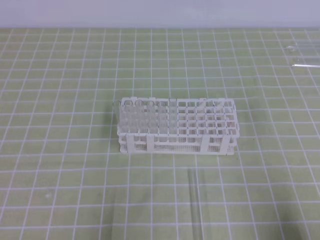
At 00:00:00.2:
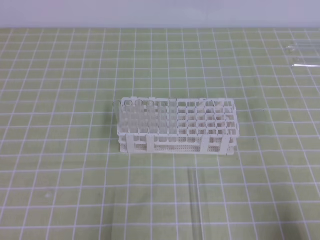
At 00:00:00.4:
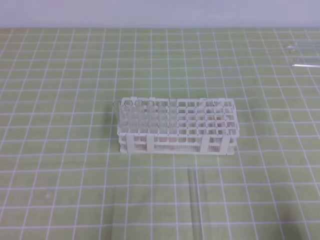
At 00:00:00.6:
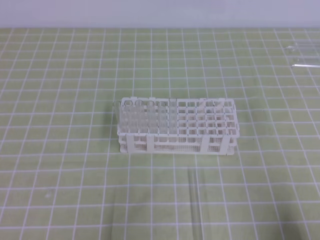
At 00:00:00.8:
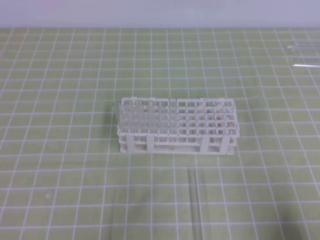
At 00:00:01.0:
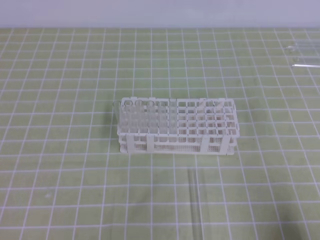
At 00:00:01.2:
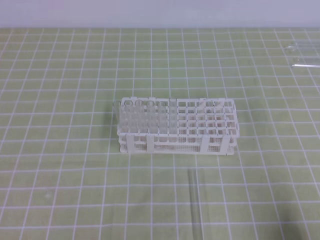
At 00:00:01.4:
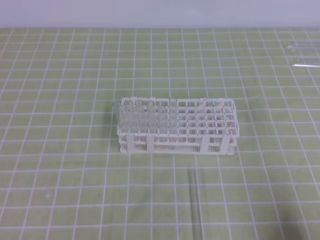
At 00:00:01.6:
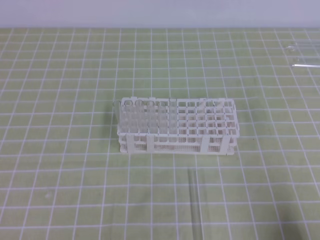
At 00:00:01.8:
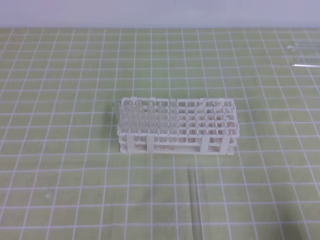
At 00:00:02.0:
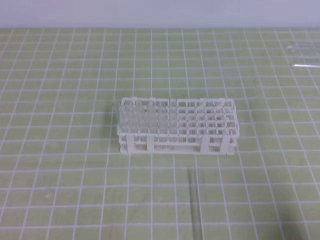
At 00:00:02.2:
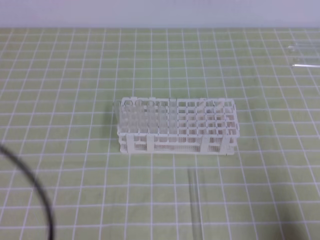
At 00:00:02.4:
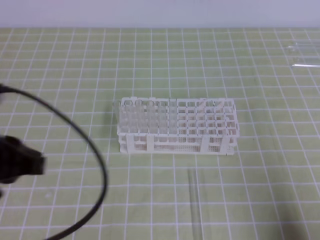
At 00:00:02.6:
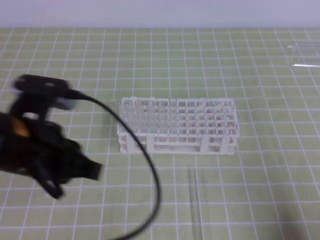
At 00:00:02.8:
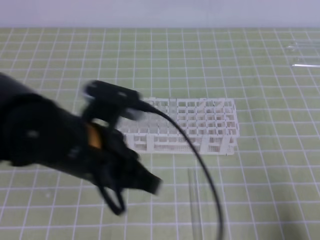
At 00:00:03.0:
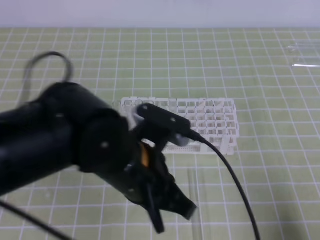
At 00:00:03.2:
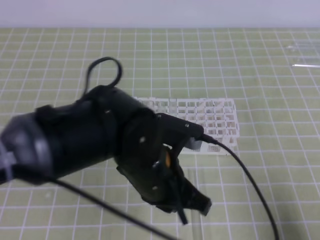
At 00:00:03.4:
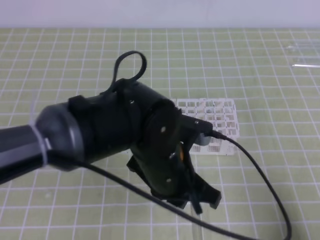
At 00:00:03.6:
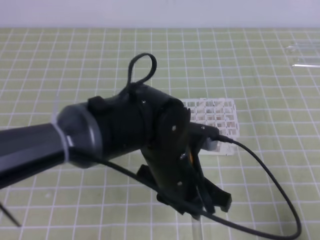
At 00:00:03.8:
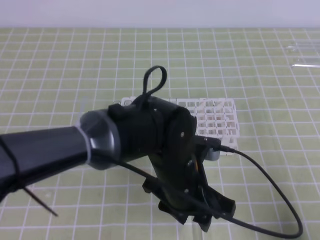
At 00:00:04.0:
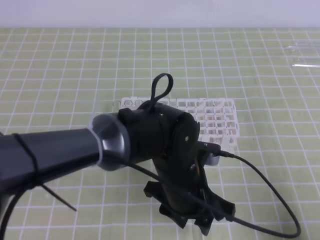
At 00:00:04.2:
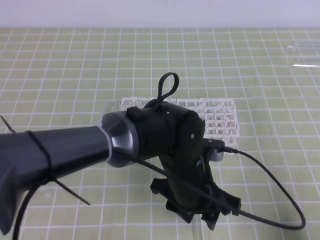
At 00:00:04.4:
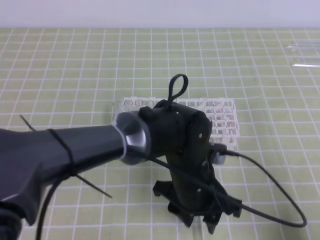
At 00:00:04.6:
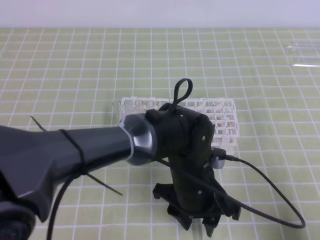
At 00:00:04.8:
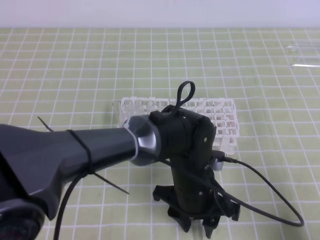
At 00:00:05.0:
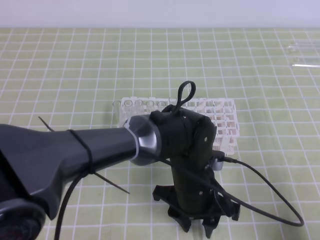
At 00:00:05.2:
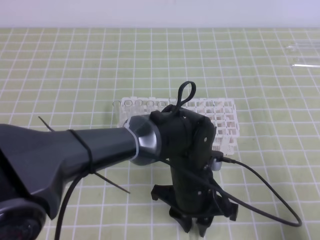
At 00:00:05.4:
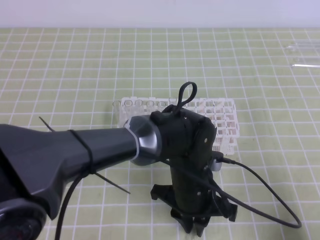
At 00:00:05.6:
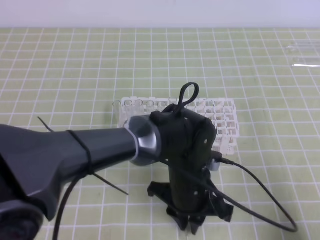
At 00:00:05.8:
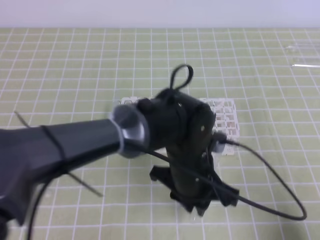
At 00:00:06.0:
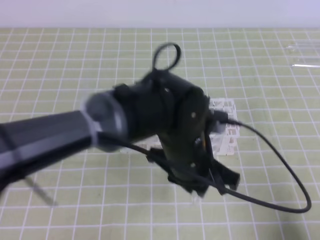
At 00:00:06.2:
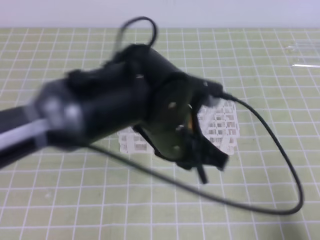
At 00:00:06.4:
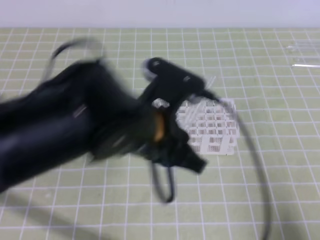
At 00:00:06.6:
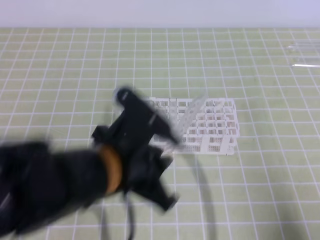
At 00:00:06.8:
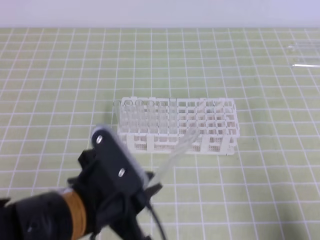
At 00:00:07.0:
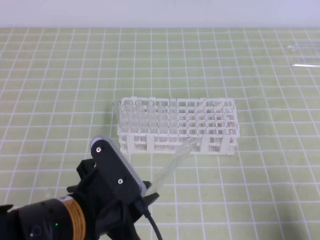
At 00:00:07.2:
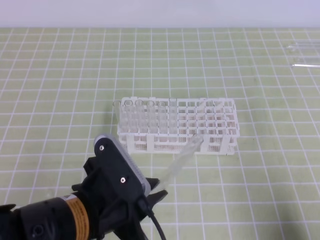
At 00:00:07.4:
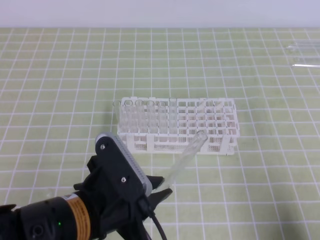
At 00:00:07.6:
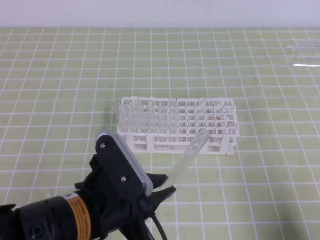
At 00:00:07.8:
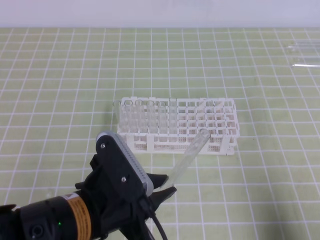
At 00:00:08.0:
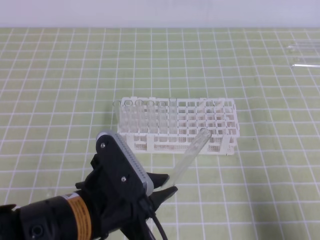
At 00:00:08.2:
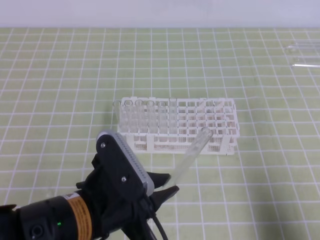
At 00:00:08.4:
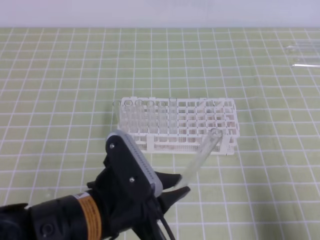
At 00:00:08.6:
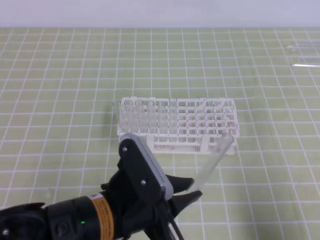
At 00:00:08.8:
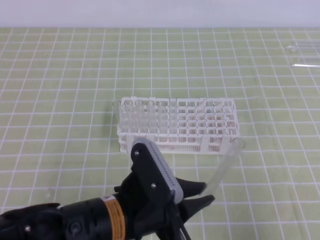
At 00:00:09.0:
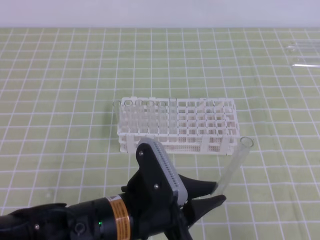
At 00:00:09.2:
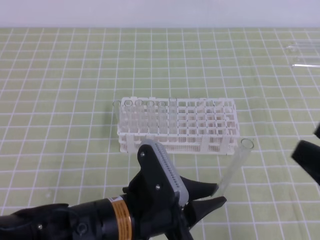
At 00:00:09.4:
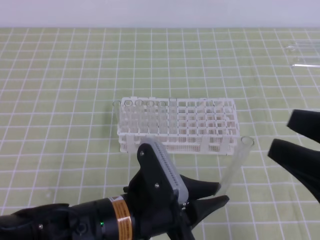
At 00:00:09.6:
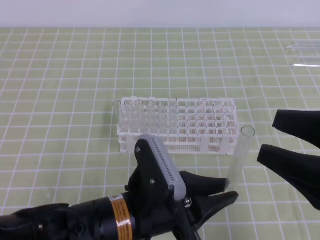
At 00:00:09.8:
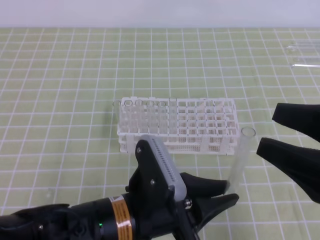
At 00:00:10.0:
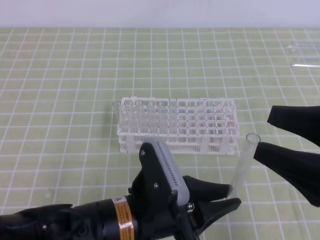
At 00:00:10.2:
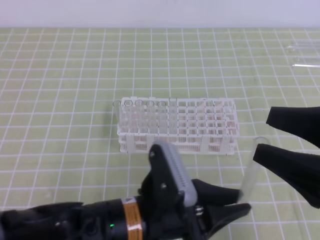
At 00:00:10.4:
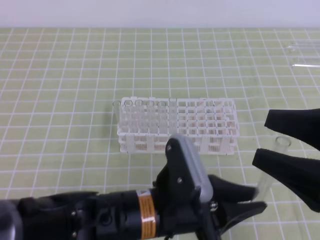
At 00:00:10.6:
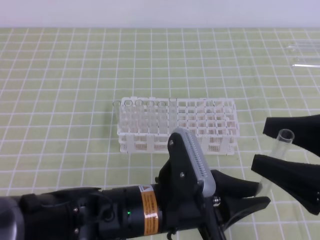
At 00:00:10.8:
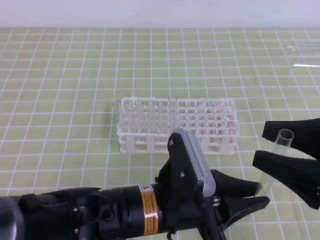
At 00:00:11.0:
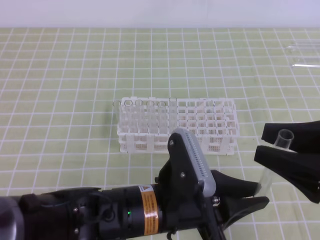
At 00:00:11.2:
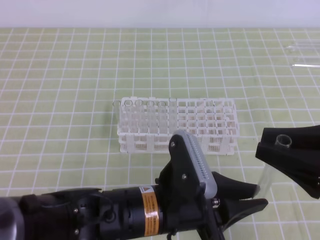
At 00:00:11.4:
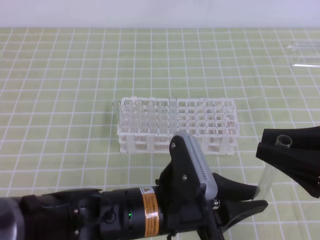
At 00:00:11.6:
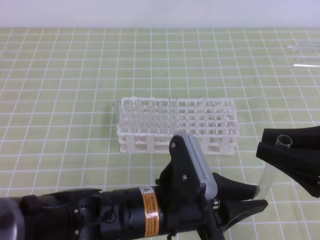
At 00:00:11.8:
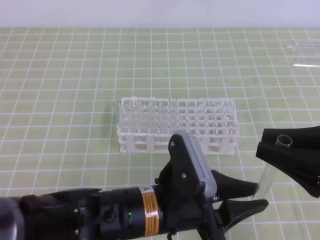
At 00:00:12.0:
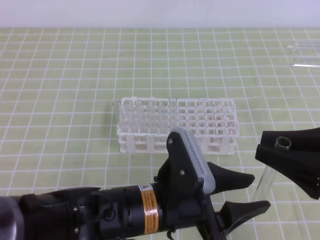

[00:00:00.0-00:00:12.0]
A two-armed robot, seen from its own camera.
00:00:01.6 to 00:00:03.0: The left gripper travels to the right and forward by roughly 25 cm.
00:00:03.0 to 00:00:04.4: The left gripper goes about 15 cm to the right and downward, and opens up.
00:00:04.4 to 00:00:06.0: The left gripper heads upward, covering approximately 5 cm, and closes up.
00:00:06.0 to 00:00:07.6: The left gripper heads to the left and backward, covering roughly 15 cm.
00:00:07.6 to 00:00:09.0: The right gripper goes some 10 cm upward, and opens its fingers, while the left gripper ends up about 5 cm from where it was.
00:00:09.0 to 00:00:10.4: The right gripper shifts roughly 5 cm forward, and opens its fingers.
00:00:10.4 to 00:00:12.0: The left gripper opens its fingers. Meanwhile the right gripper closes.

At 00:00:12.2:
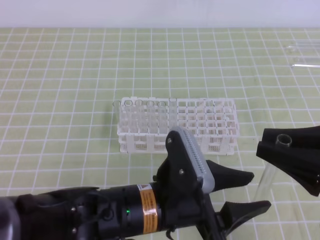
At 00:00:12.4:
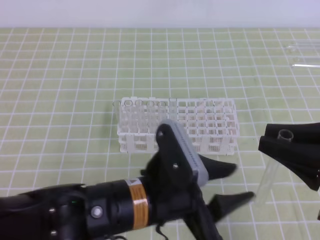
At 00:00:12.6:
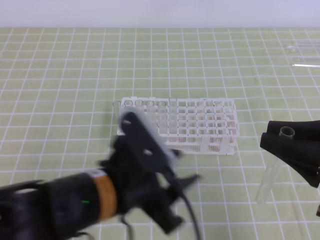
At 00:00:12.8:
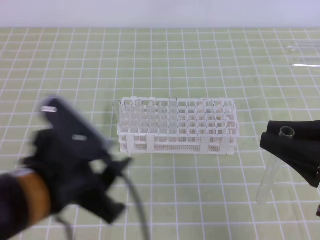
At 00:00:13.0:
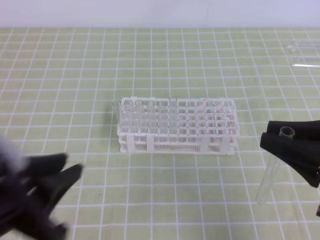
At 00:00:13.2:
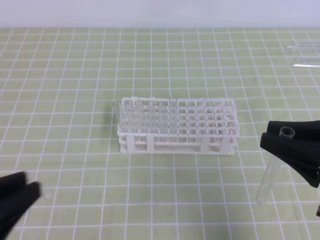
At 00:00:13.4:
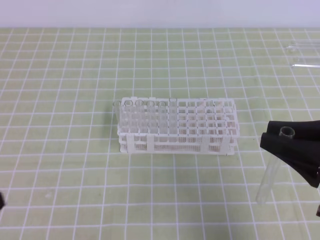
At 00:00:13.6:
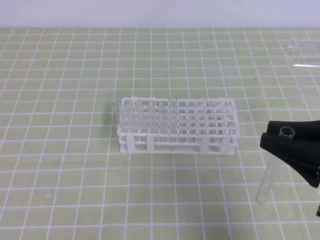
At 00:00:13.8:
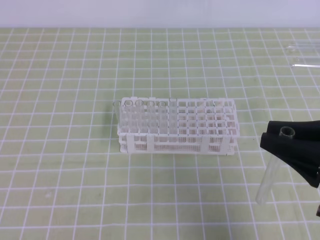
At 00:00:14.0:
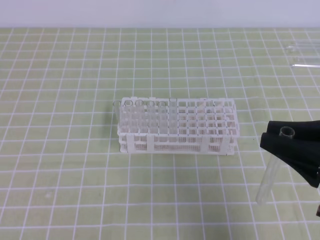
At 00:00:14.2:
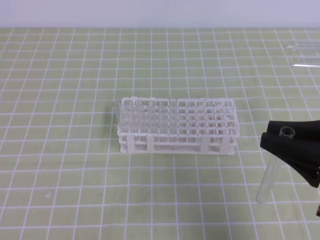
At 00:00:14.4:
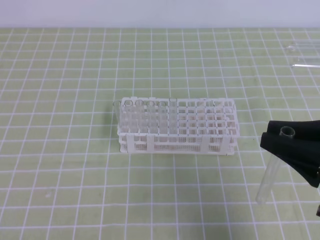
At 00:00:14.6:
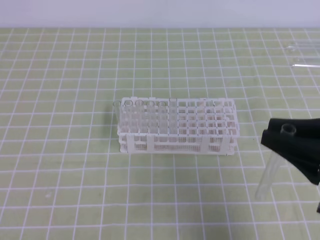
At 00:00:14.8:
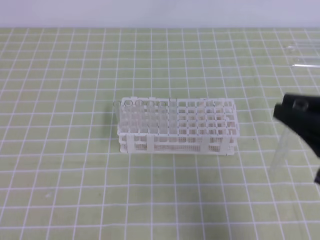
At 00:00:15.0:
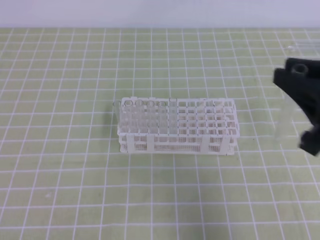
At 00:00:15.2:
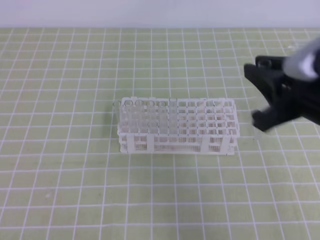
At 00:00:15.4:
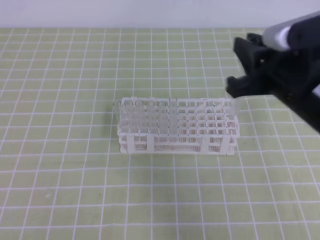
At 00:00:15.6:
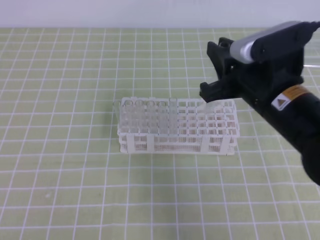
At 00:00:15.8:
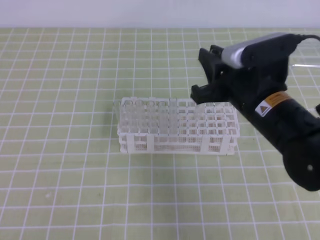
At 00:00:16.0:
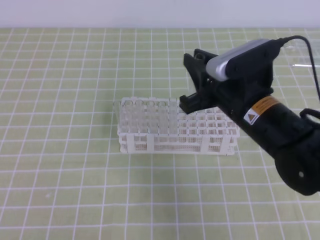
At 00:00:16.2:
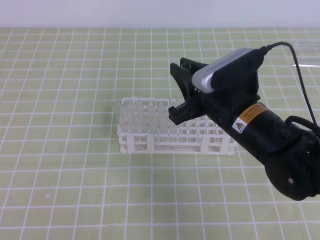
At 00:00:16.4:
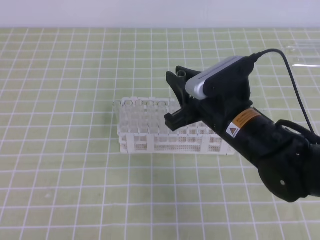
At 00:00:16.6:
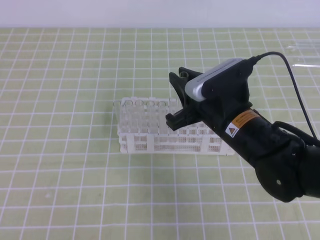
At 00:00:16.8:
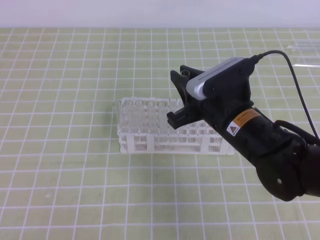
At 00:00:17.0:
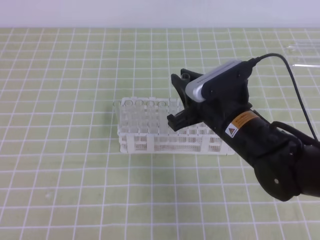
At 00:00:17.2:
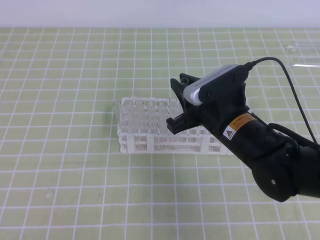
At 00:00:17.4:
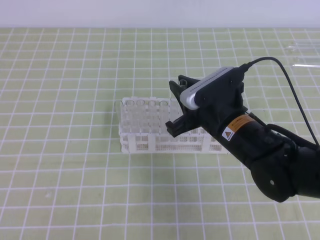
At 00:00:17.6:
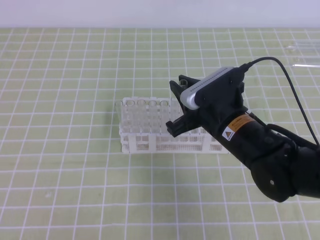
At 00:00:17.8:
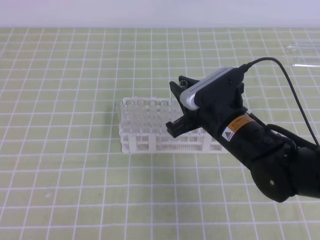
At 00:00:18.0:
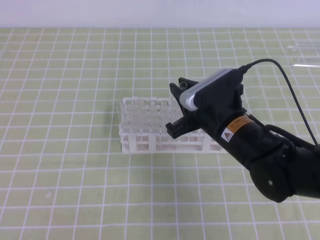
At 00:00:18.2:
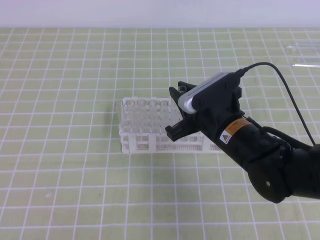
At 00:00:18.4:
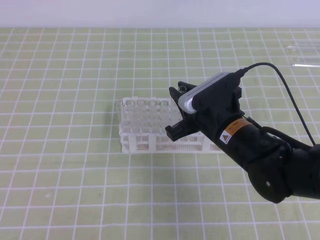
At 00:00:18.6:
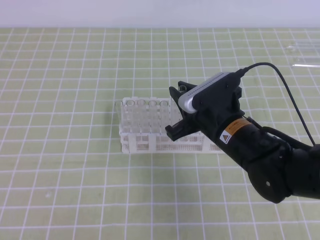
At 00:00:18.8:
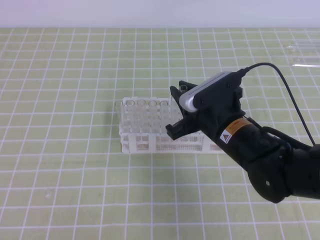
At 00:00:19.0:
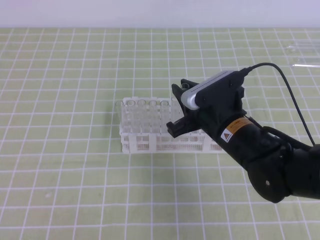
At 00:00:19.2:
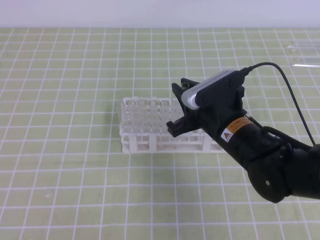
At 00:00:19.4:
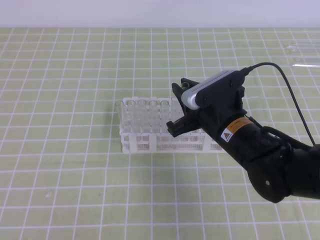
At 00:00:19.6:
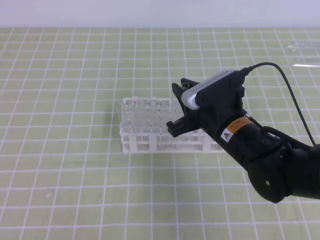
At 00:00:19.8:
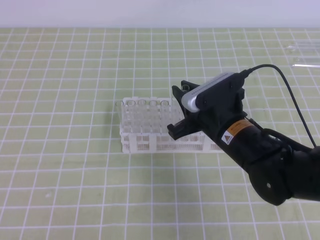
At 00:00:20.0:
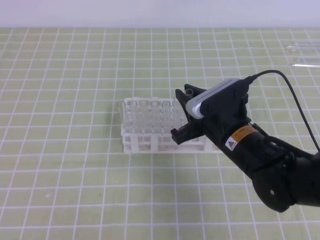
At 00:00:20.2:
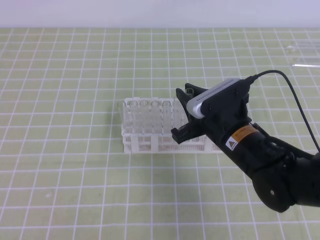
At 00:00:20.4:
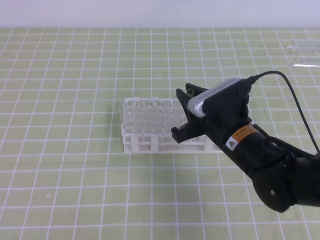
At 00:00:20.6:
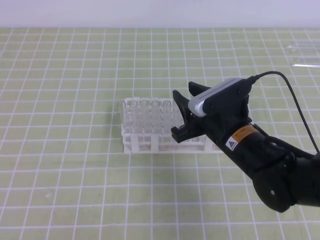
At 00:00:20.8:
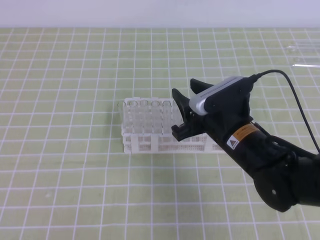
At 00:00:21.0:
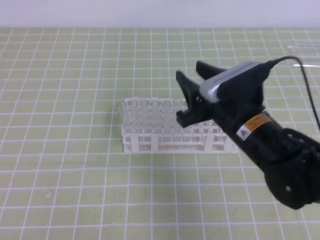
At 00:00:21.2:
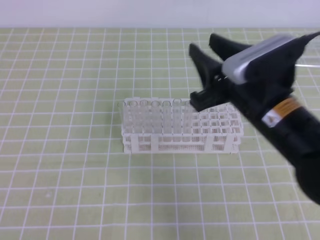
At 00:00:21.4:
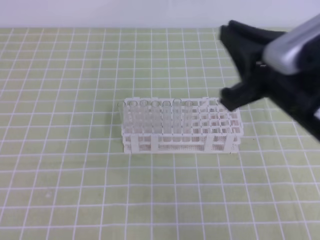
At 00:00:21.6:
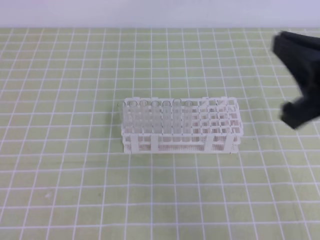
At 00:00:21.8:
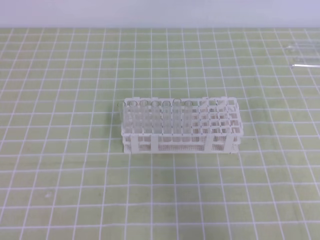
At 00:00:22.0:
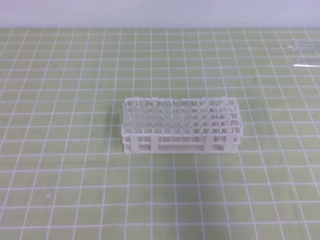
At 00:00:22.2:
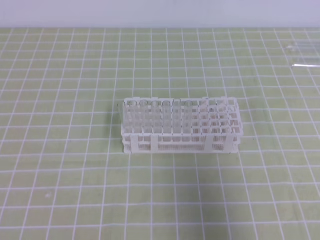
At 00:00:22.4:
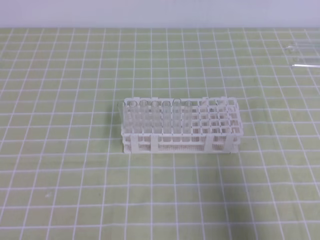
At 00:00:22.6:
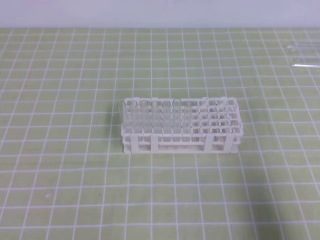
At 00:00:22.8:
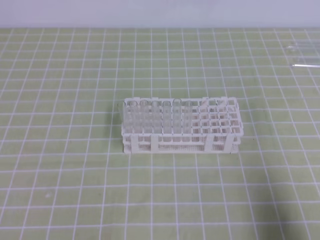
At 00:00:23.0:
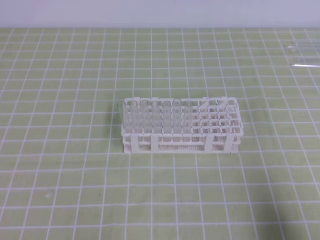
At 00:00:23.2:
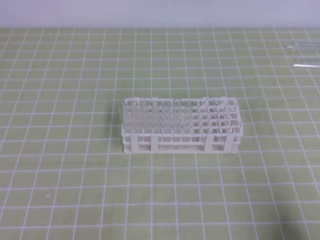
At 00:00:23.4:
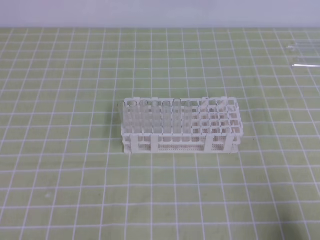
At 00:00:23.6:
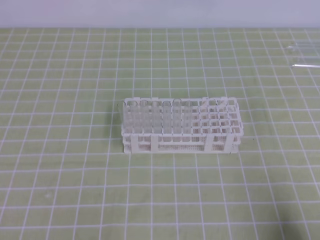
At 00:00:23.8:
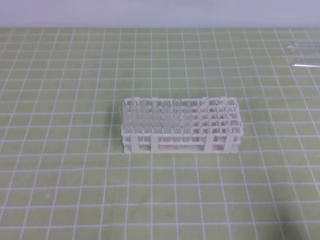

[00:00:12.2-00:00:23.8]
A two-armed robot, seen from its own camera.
00:00:12.2 to 00:00:13.6: The left gripper goes some 25 cm to the left, and closes its fingers.
00:00:13.6 to 00:00:15.0: There are only small adjustments of the grippers.
00:00:15.0 to 00:00:16.6: The right gripper moves to the left, forward and downward, some 20 cm.
00:00:16.6 to 00:00:18.0: The grippers make only small movements.
00:00:18.0 to 00:00:19.4: Neither gripper changes place.
00:00:19.4 to 00:00:21.0: The right gripper opens.
00:00:21.0 to 00:00:22.4: The right gripper travels to the right and backward by approximately 25 cm, and closes.
00:00:22.4 to 00:00:23.8: The right gripper is displaced downward by some 15 cm.
